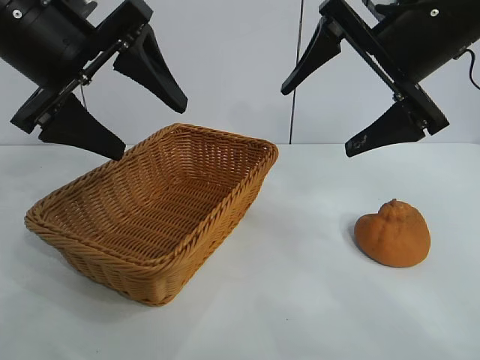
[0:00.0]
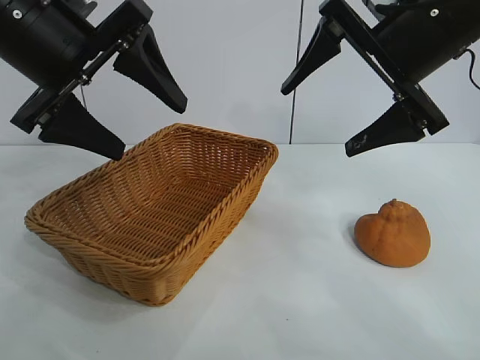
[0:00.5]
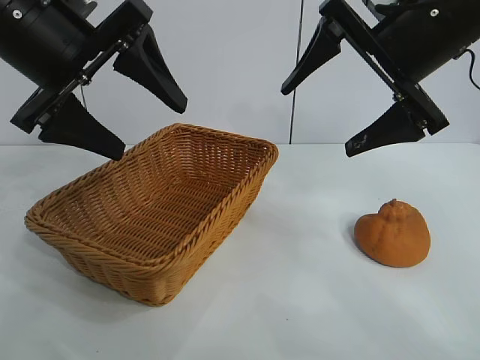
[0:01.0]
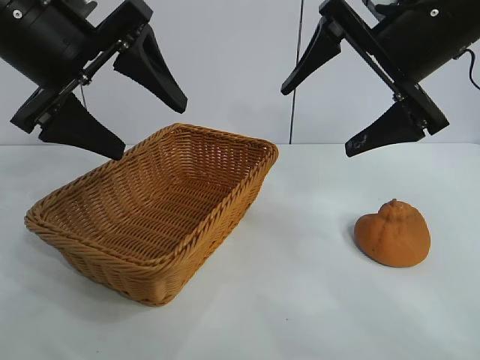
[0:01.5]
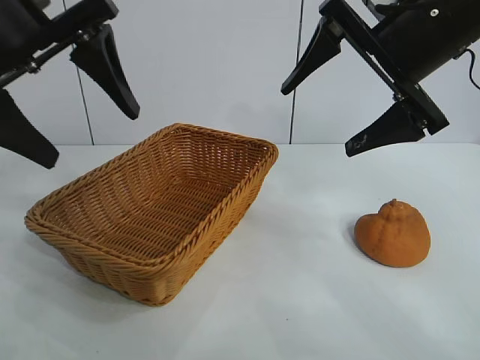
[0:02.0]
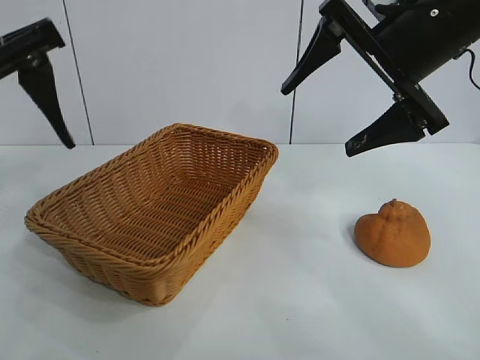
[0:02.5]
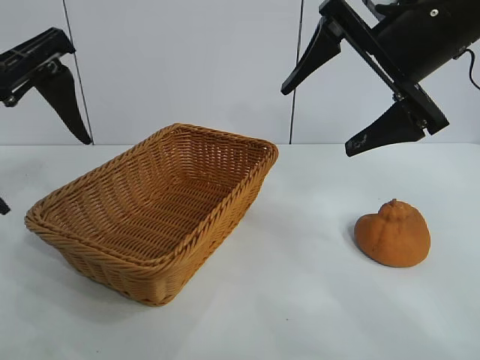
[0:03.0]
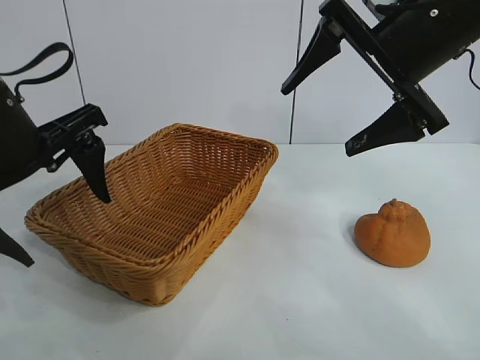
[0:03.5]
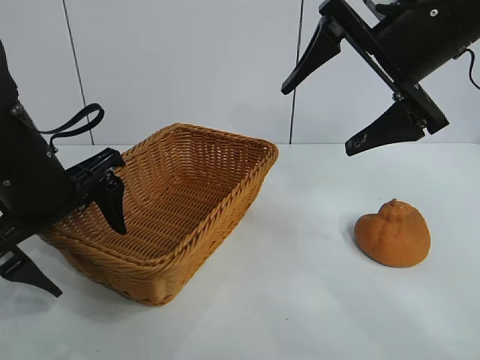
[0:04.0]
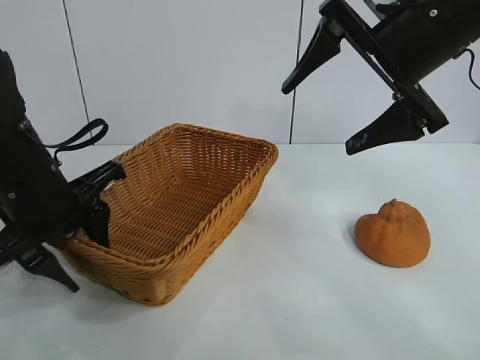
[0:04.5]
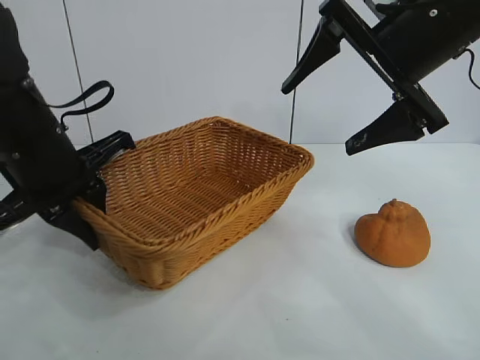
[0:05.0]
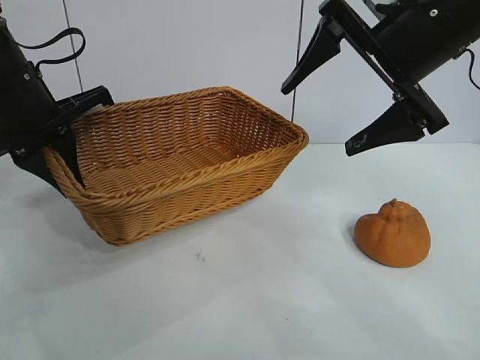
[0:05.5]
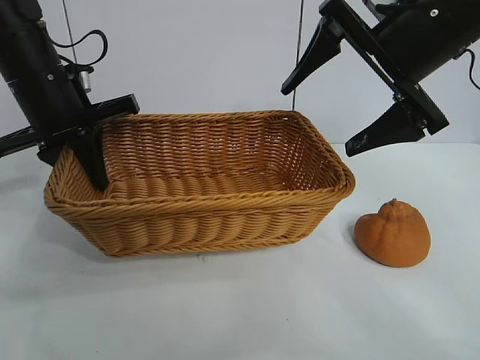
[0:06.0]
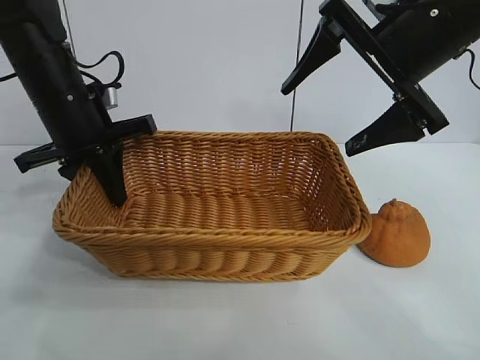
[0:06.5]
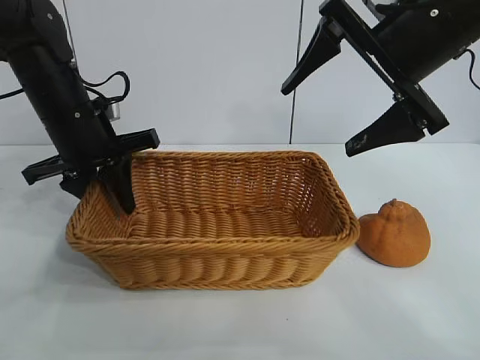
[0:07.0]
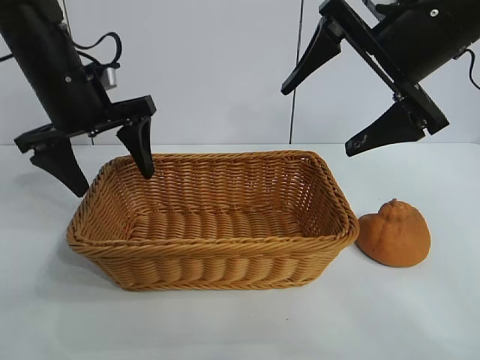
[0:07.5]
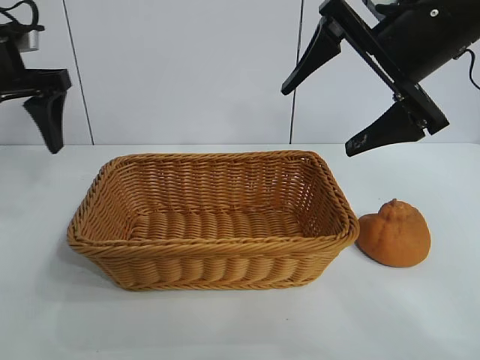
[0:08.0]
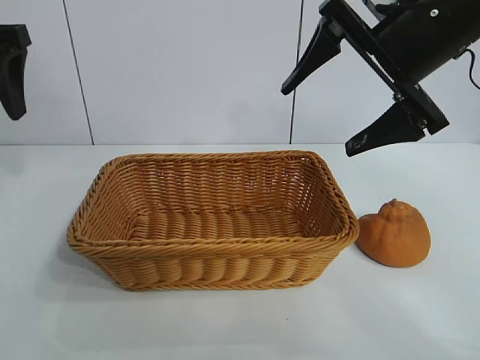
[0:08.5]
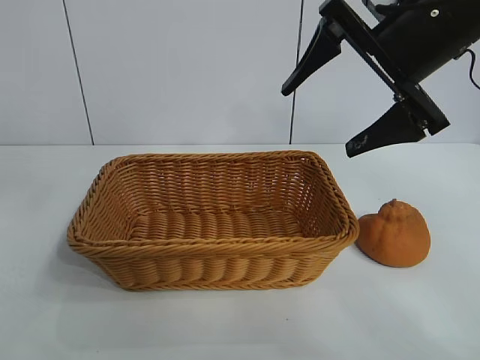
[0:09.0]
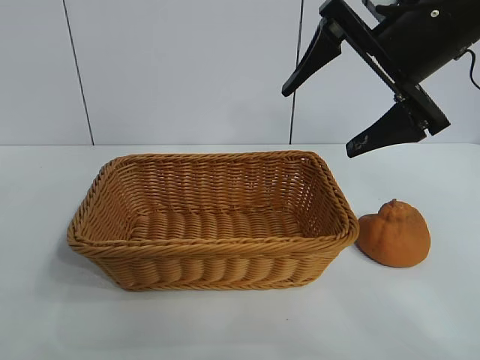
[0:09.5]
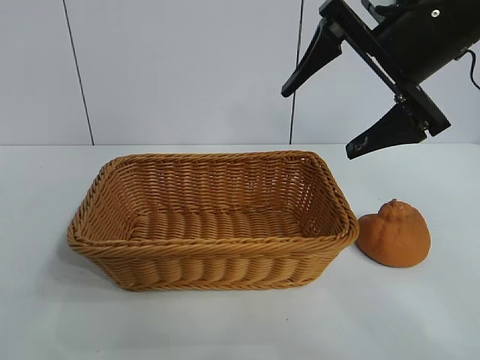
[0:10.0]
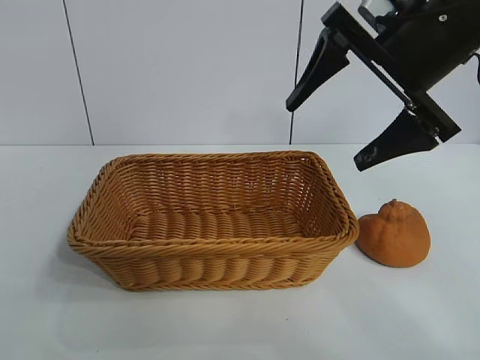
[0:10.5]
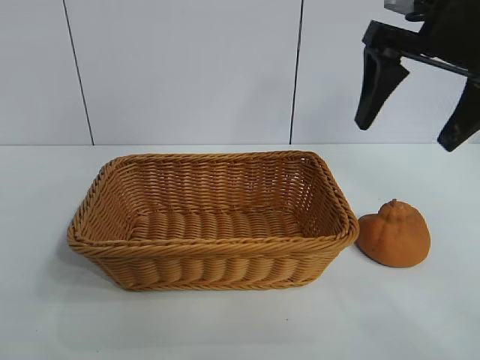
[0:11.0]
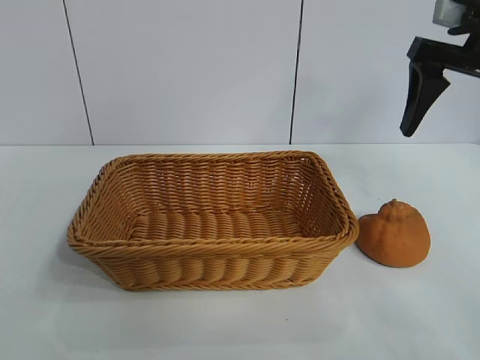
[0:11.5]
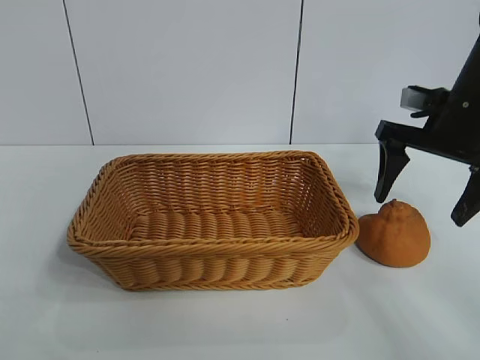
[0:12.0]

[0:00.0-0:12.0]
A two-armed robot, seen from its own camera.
Task of the whole recording: pick up the orange and put it into the basket.
Step, 0:02.0 to 0:04.5: Grasp the basket with left gripper.
Step, 0:05.0 to 0:07.0: Place the basket in the center of view with left gripper.

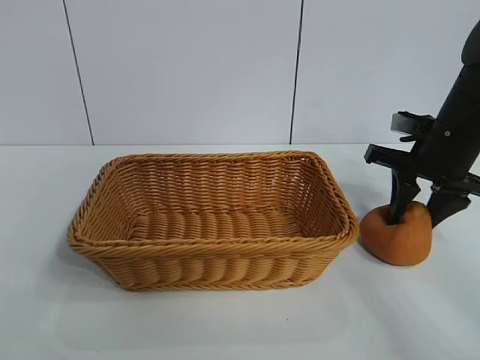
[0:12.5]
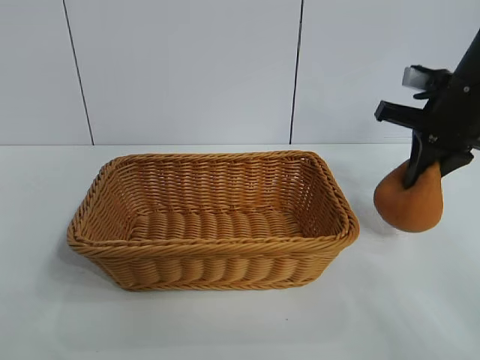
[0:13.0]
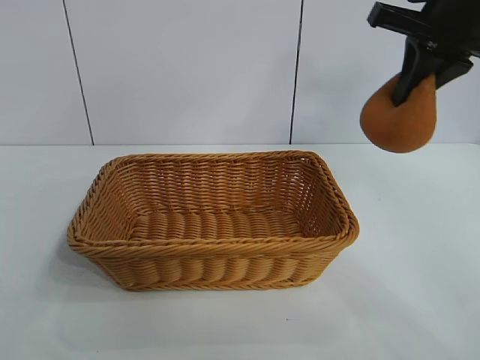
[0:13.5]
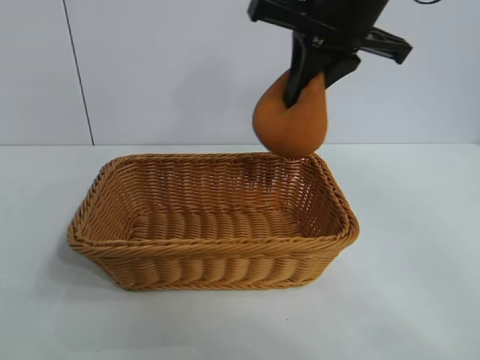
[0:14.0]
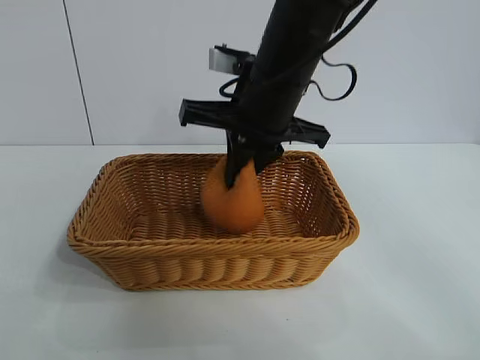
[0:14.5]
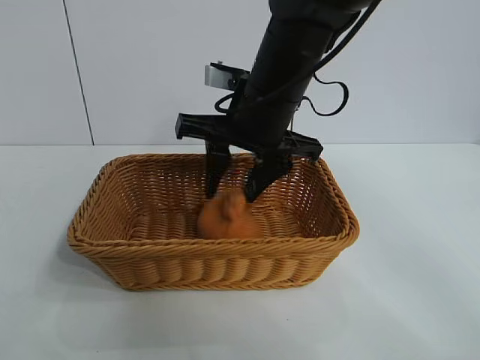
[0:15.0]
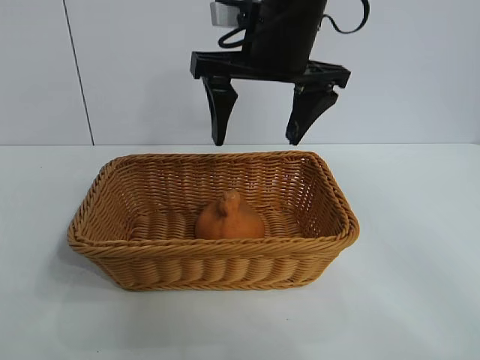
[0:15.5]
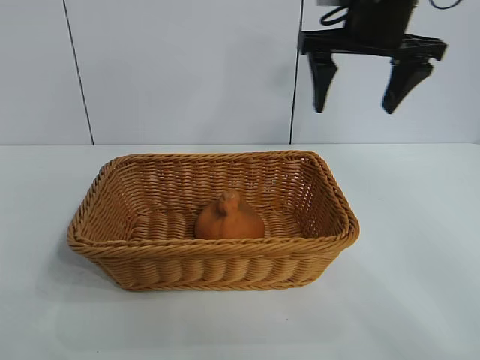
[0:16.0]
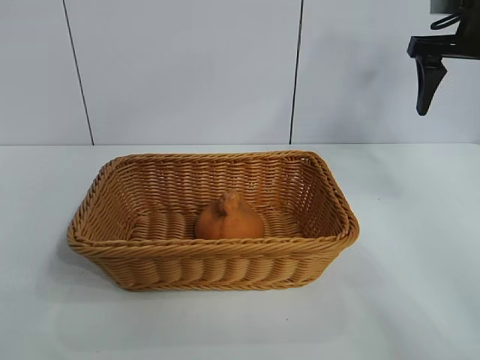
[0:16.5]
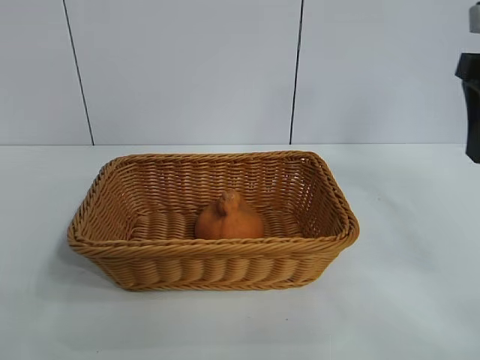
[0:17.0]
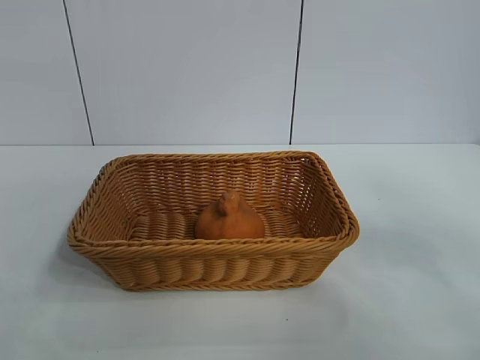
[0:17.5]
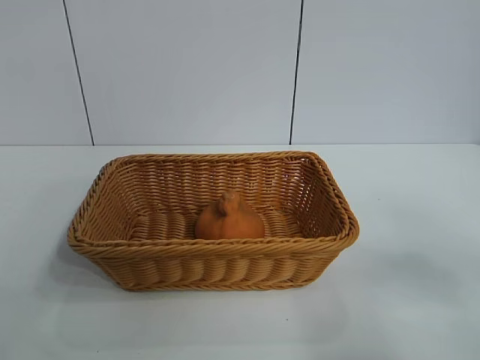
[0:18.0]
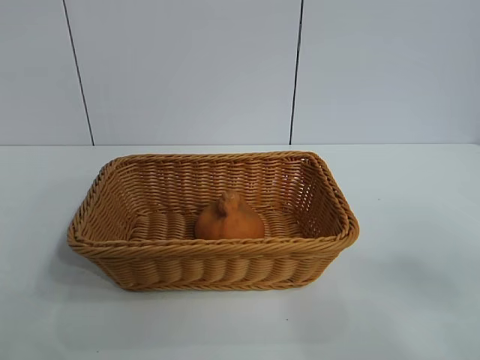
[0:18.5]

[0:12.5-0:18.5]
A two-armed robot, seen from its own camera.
Task of the whole recording: pick up the orange and put it into the basket.
Step, 0:13.0 to 0:15.0: Place the orange in the basket with right gripper.

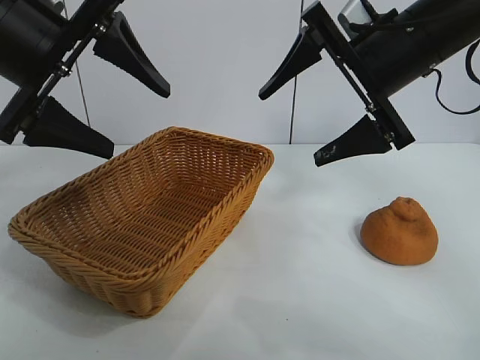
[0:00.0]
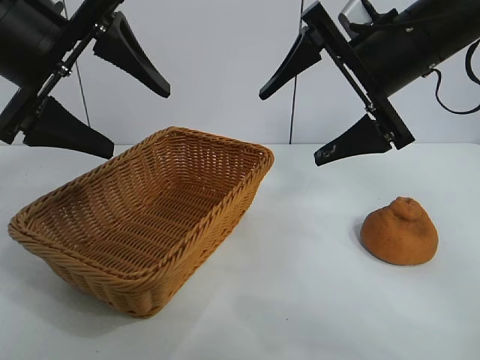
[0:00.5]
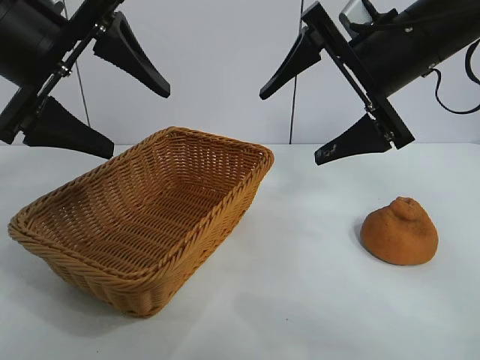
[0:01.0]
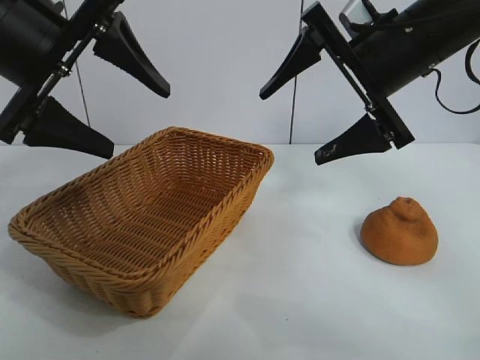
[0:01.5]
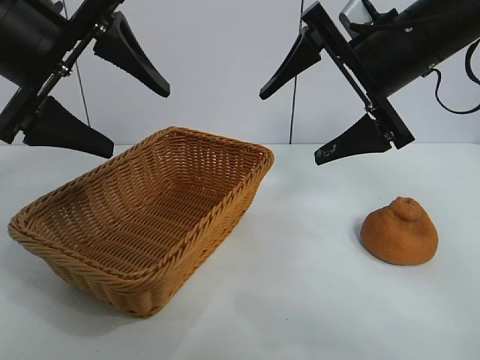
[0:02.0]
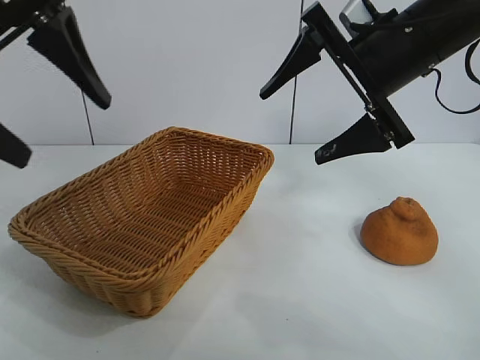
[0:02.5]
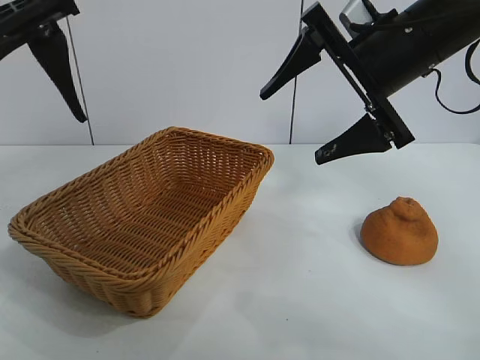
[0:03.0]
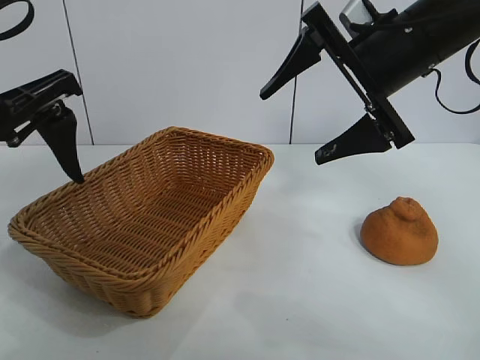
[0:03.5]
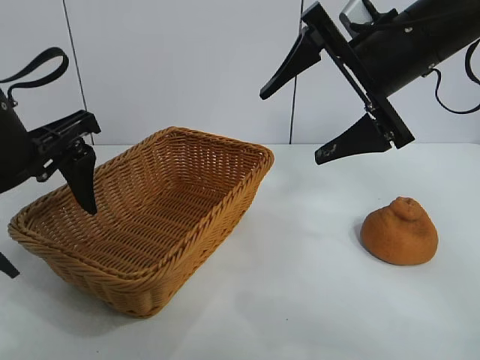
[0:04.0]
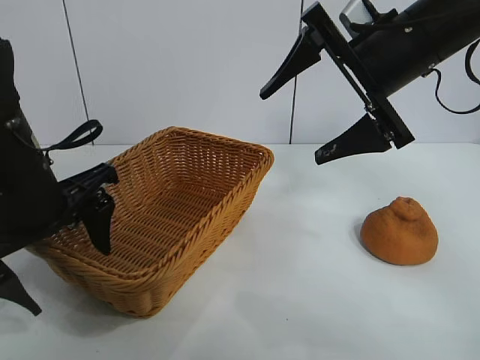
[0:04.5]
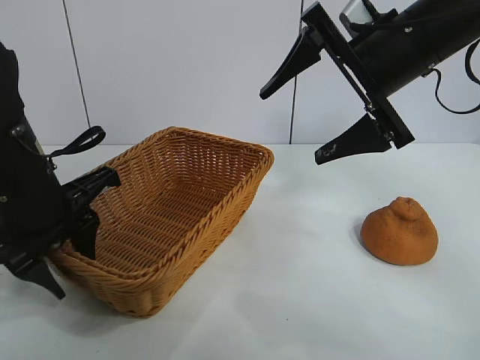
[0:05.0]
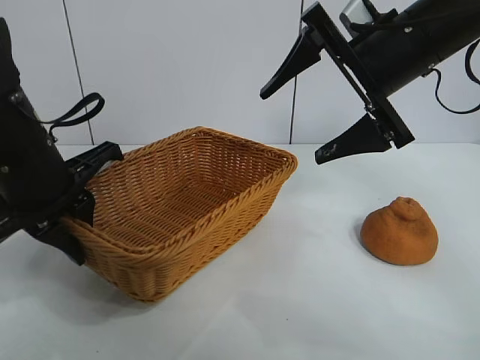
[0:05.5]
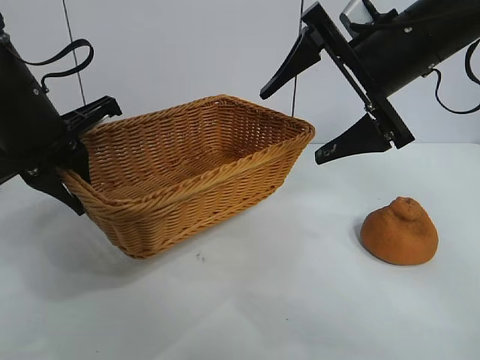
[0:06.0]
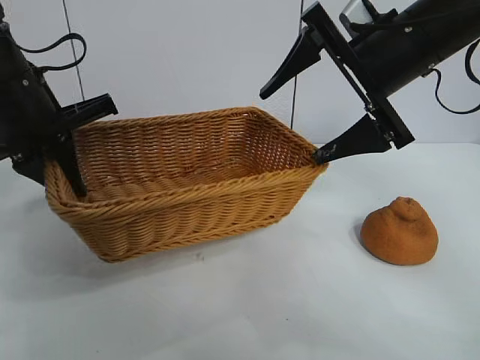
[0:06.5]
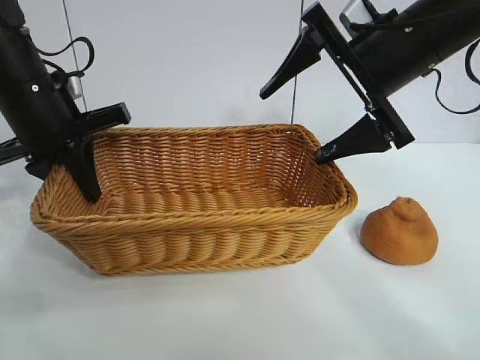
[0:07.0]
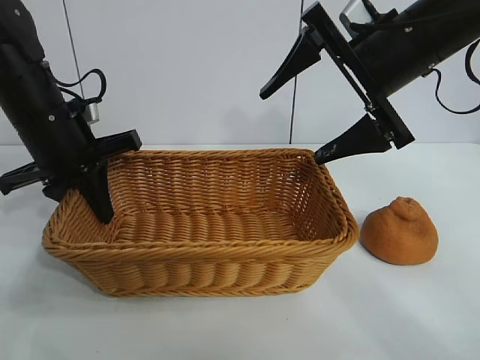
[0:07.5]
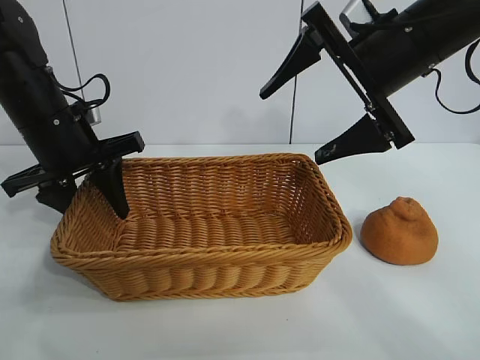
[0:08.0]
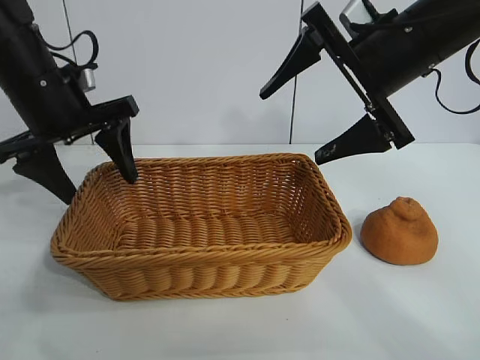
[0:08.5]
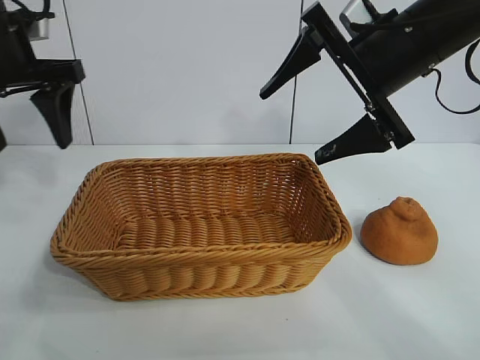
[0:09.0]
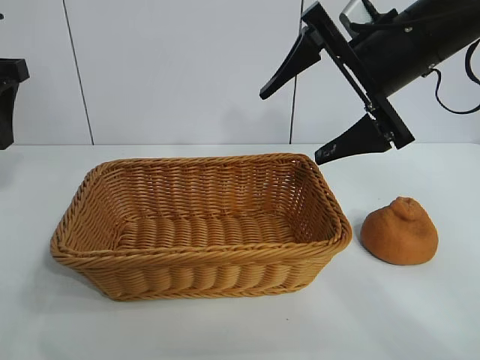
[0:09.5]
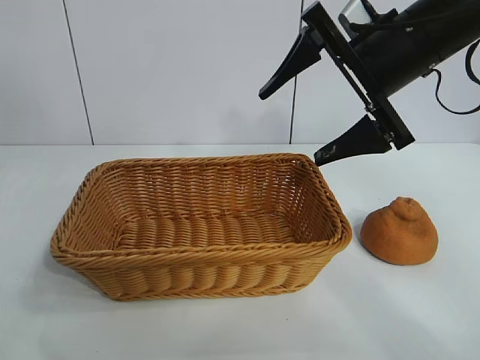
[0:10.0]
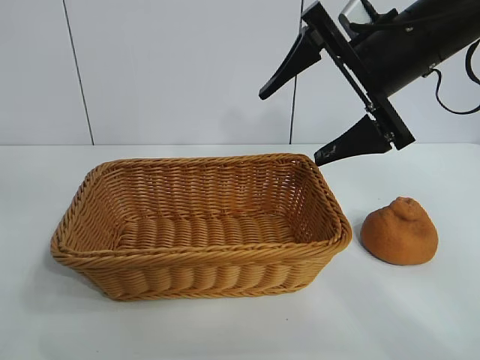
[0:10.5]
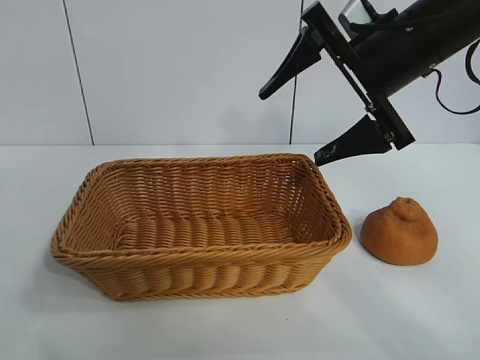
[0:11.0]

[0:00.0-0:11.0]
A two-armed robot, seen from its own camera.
Task of the whole recording: pick up the orange and put it into the basket.
Step, 0:02.5 to 0:05.0: Grasp the basket with left gripper.
Step, 0:05.5 to 0:08.0: Place the basket in the center of view with left gripper.
